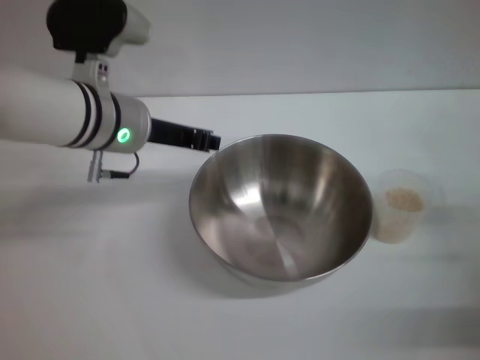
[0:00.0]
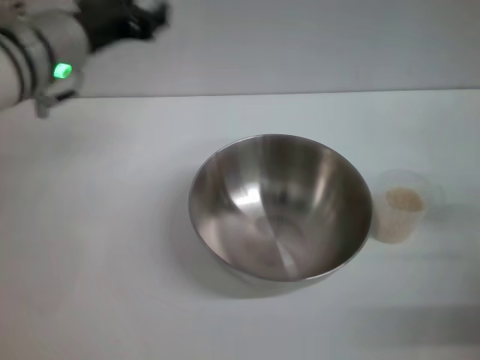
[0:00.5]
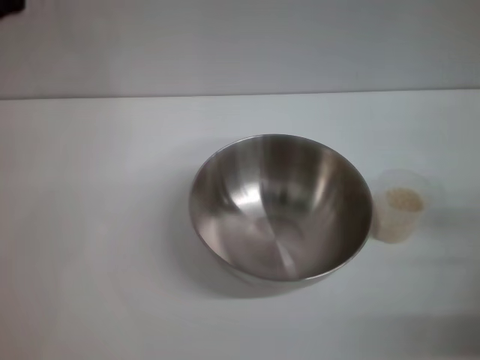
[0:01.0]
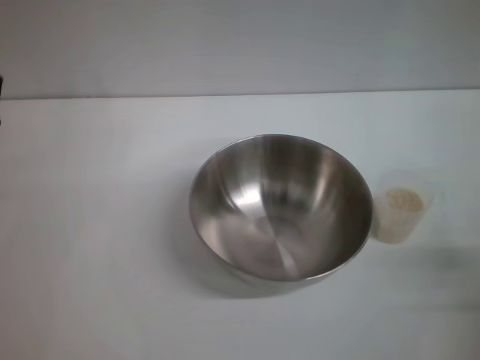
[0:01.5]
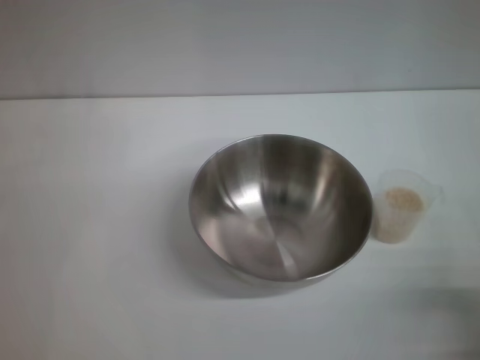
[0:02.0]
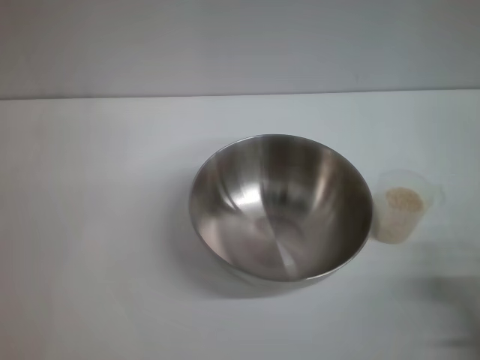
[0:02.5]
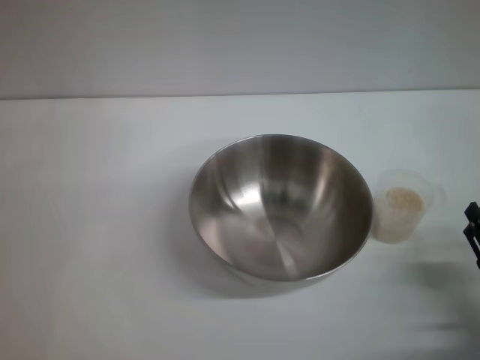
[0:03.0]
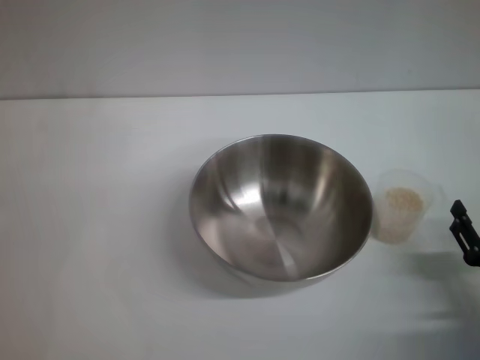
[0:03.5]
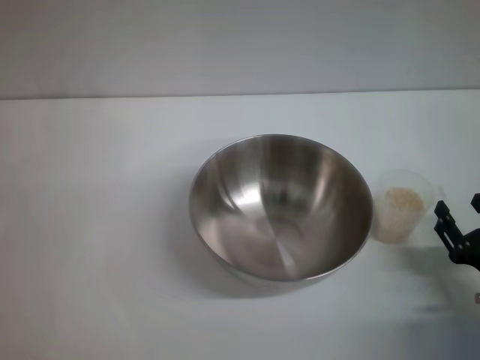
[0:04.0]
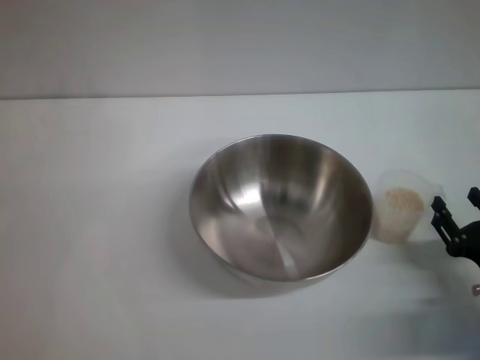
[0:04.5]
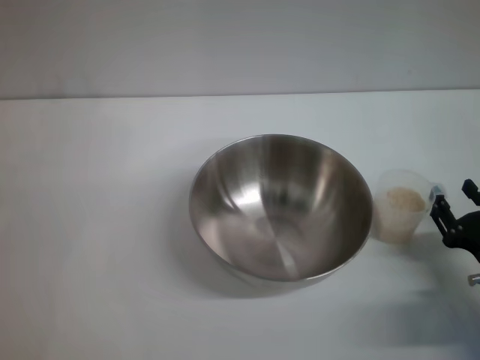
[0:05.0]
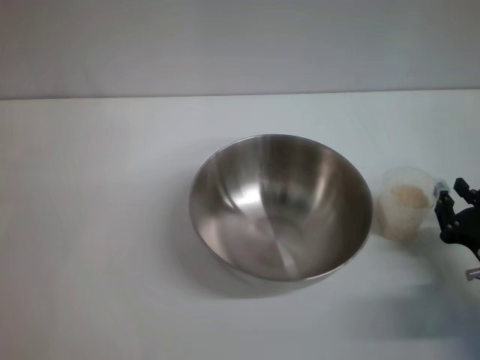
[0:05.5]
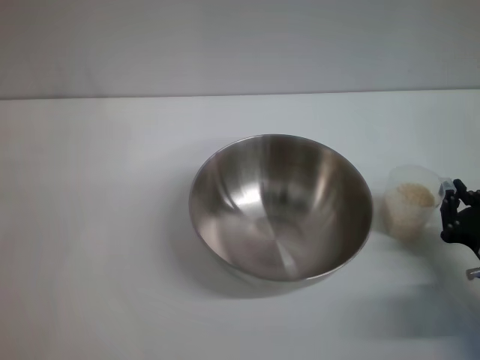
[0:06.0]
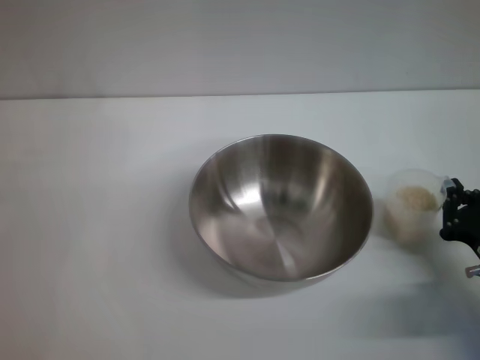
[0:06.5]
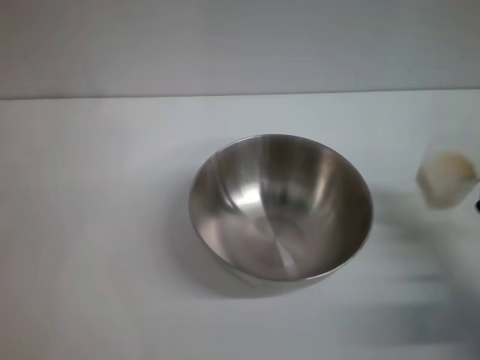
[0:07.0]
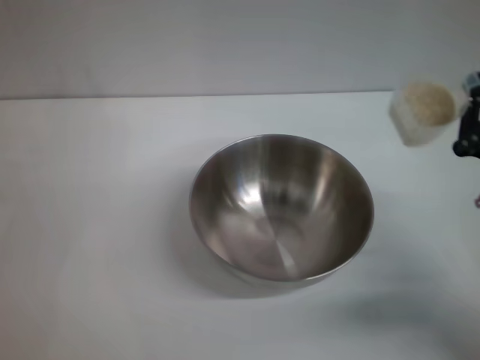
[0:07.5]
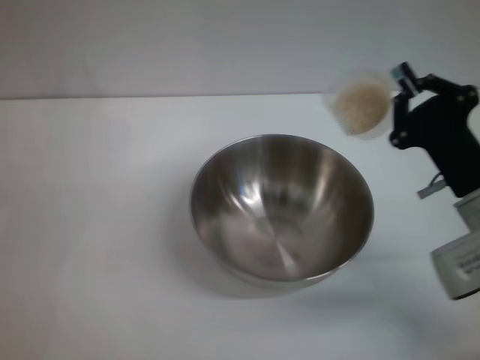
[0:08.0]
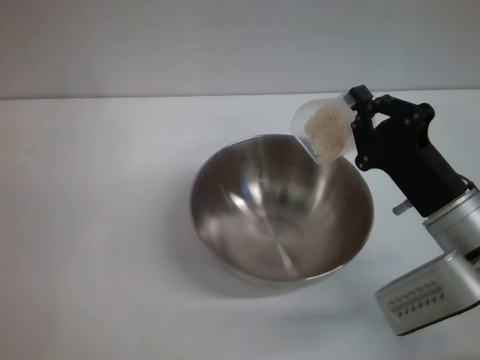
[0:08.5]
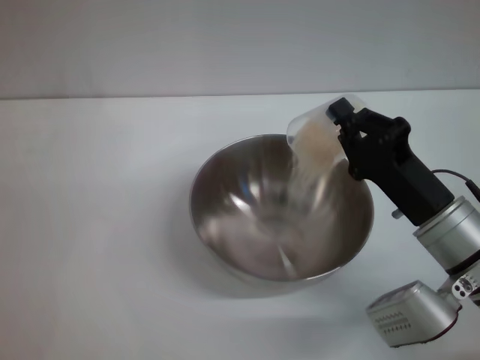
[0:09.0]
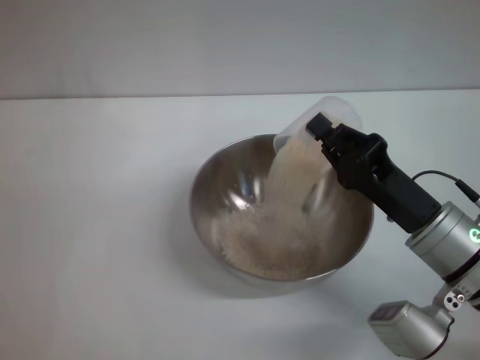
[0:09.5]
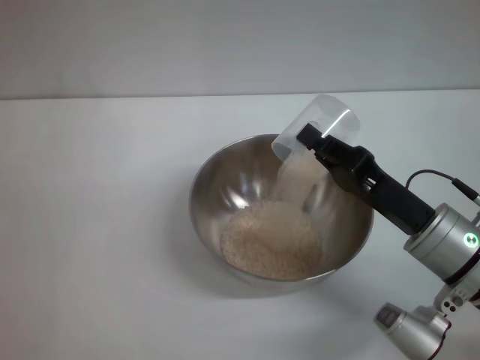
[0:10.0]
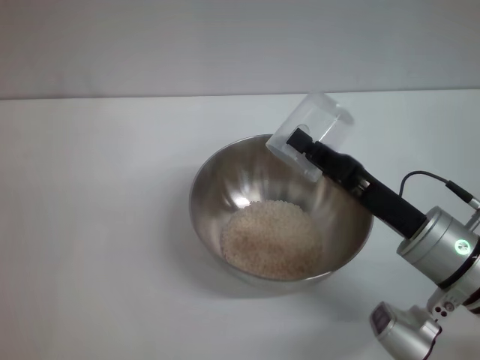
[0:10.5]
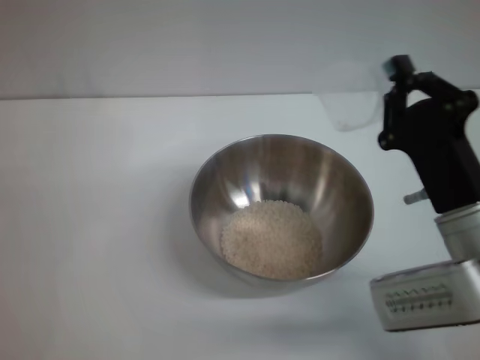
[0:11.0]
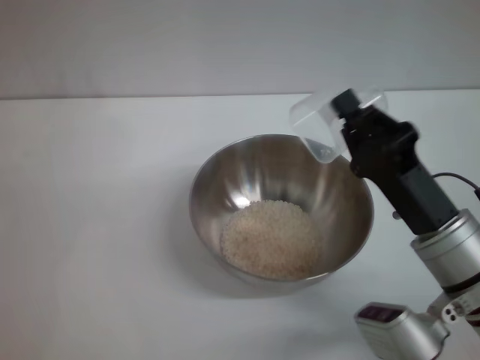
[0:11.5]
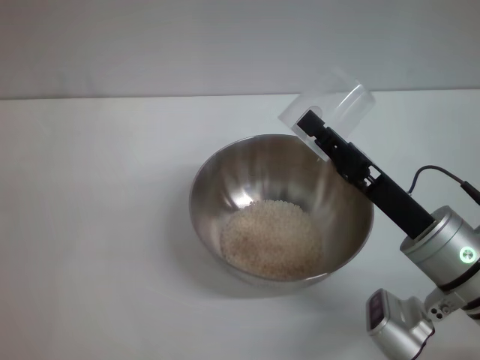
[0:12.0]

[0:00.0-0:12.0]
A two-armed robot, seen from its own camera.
Task of the whole recording: Place the bowl in the middle of the table with one hand and pour the rice from the grain cup into it with the other hand.
Step, 0:00.5 to 0:07.0: Pick up the cup with rice in it with the right gripper.
Step, 0:07.5 to 0:10.5: Pour the rice from the cup into the bowl with the right gripper.
0:00.0 to 0:02.0: The left gripper moves backward, to the left and downward, roughly 20 cm, and opens, while the right gripper is displaced backward by about 10 cm.
0:02.0 to 0:04.0: The right gripper heads forward, covering about 10 cm.
0:04.0 to 0:06.0: The right gripper closes its fingers.
0:06.0 to 0:08.0: The right gripper heads upward, to the left and forward, covering some 10 cm.

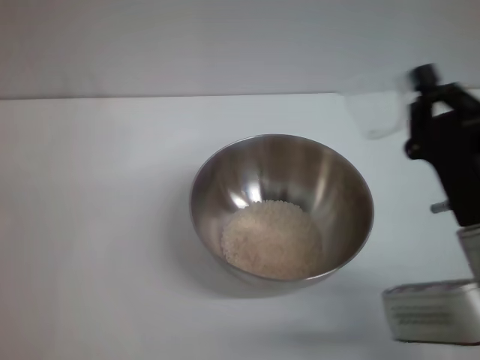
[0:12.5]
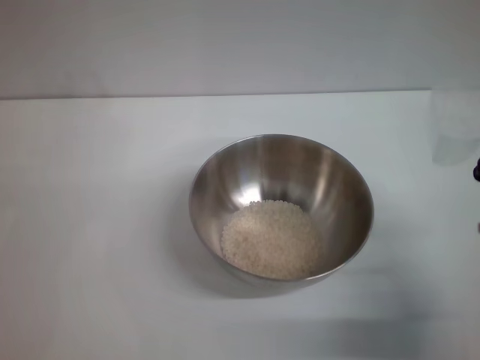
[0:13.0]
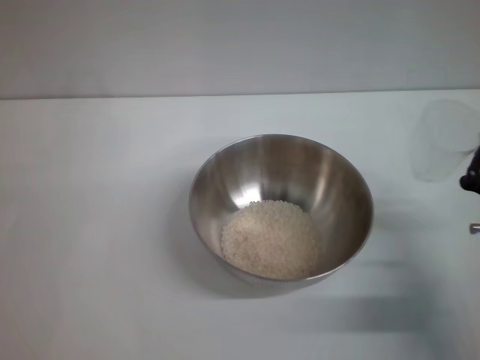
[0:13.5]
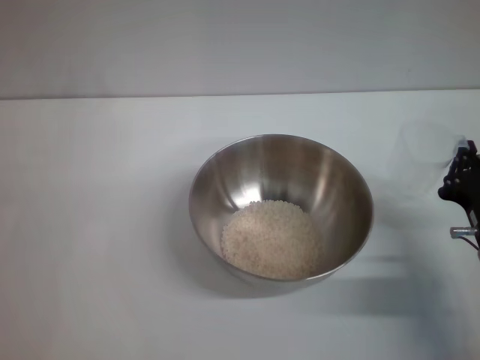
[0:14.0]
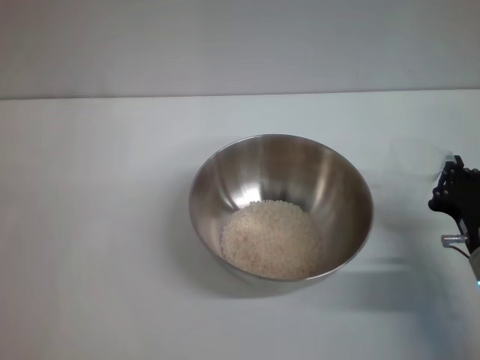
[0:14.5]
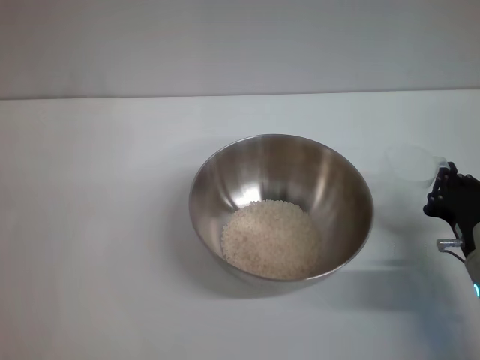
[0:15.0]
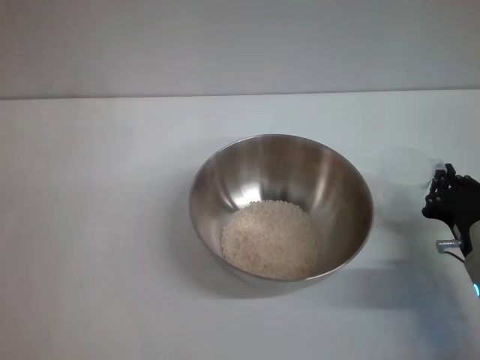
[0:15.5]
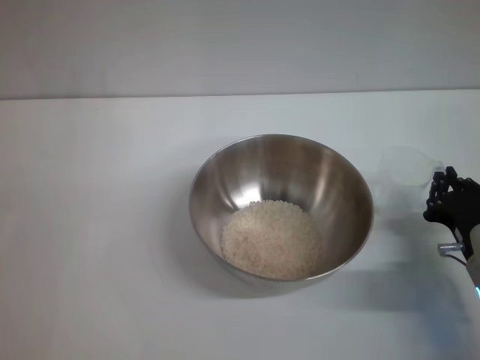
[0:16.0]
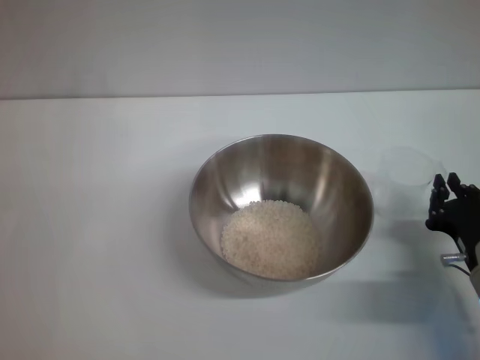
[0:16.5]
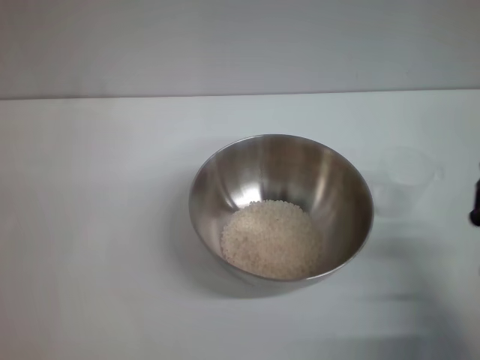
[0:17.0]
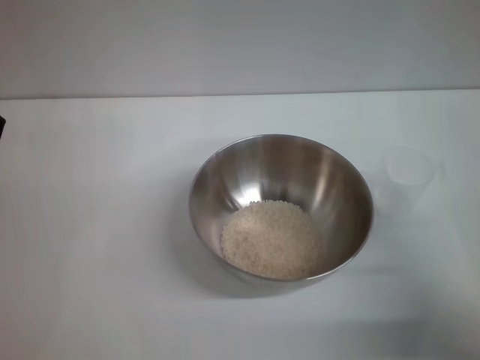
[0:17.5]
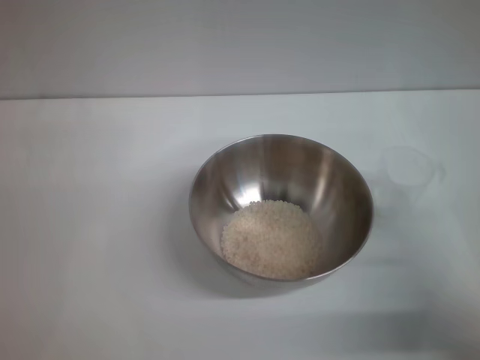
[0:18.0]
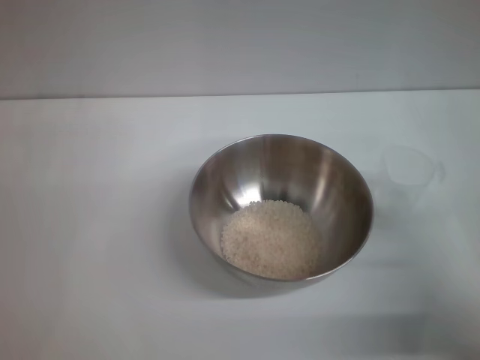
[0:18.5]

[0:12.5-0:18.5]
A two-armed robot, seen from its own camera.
Task of the whole recording: Place the bowl in the middle of the table with one hand and pour the rice from the grain cup into it with the other hand.
Step, 0:12.5 to 0:16.5: Place the cup on the table with the right gripper.
0:12.5 to 0:14.5: The right gripper shifts about 5 cm downward.
0:14.5 to 0:16.5: The grippers move only a little.
0:16.5 to 0:18.5: The right gripper goes roughly 5 cm upward, and opens.
